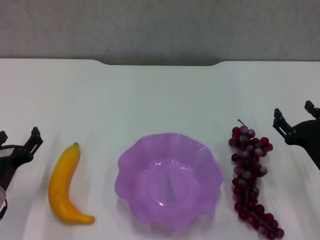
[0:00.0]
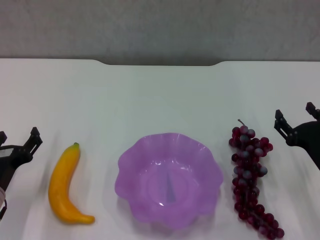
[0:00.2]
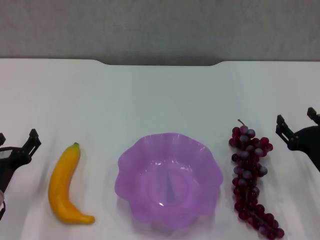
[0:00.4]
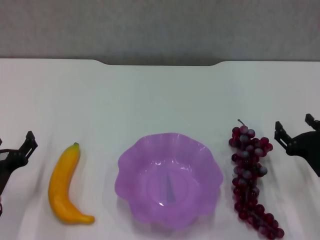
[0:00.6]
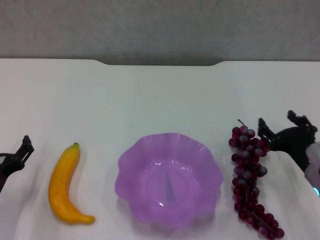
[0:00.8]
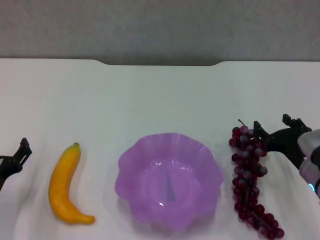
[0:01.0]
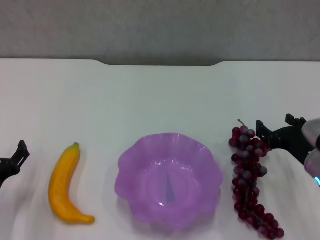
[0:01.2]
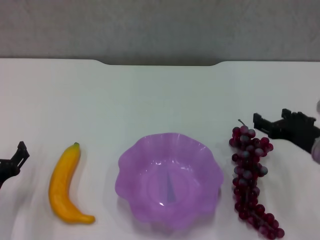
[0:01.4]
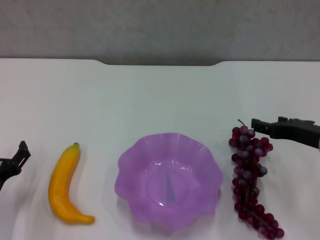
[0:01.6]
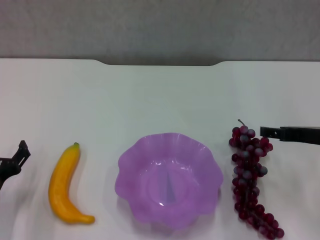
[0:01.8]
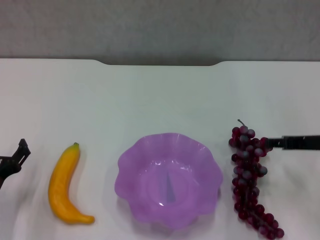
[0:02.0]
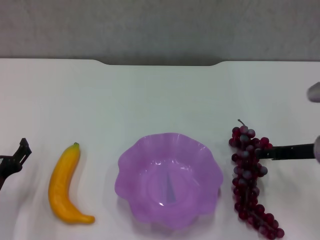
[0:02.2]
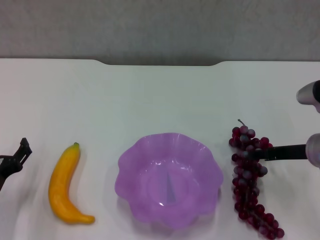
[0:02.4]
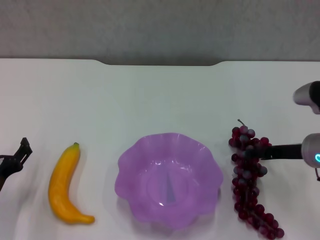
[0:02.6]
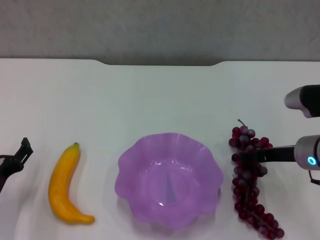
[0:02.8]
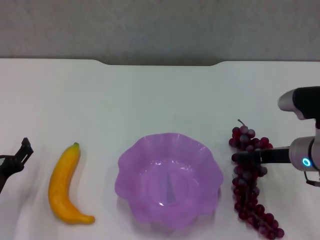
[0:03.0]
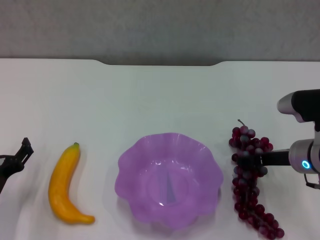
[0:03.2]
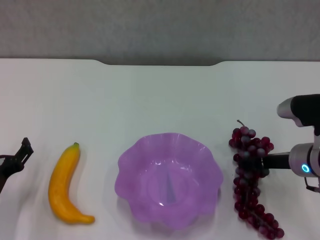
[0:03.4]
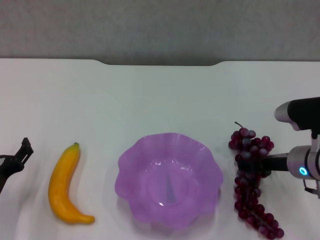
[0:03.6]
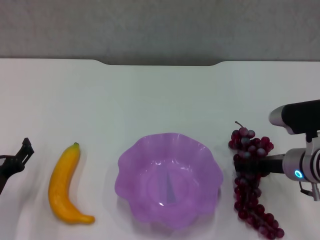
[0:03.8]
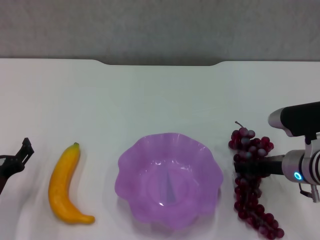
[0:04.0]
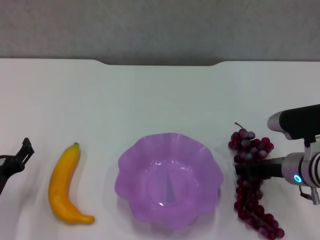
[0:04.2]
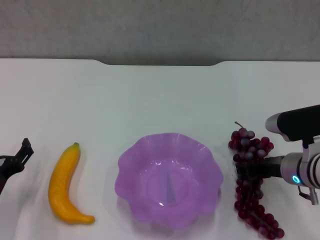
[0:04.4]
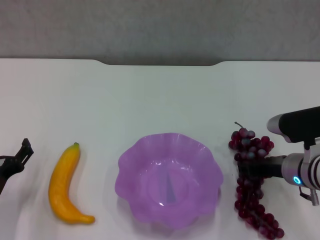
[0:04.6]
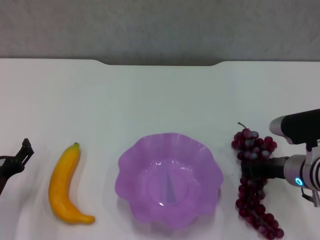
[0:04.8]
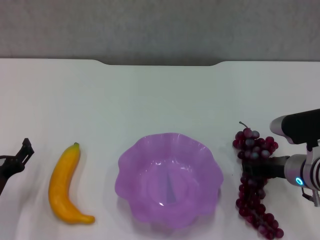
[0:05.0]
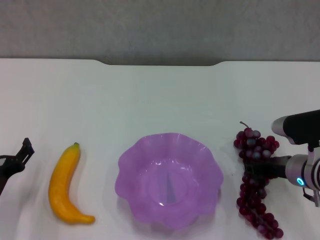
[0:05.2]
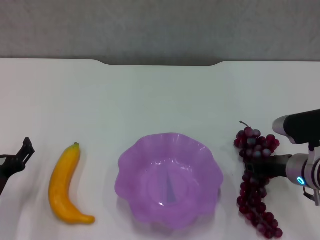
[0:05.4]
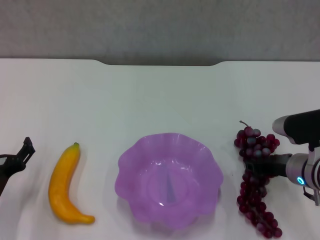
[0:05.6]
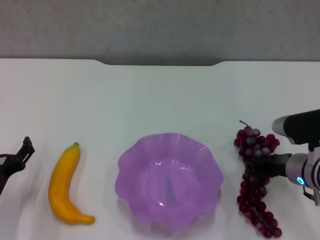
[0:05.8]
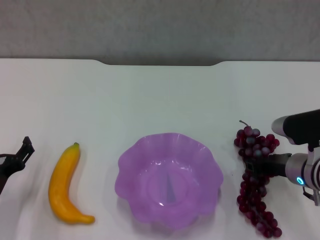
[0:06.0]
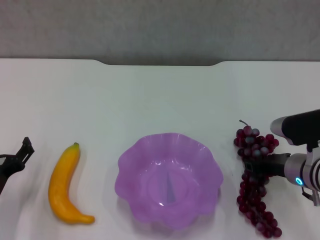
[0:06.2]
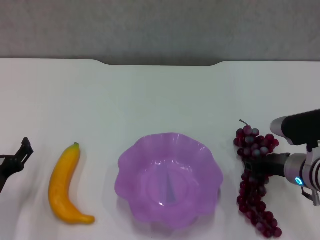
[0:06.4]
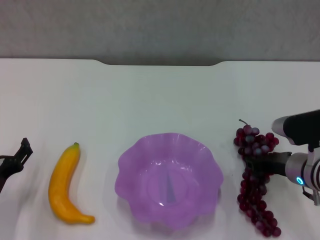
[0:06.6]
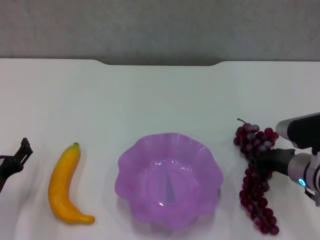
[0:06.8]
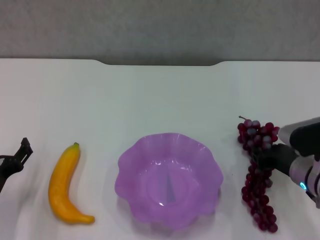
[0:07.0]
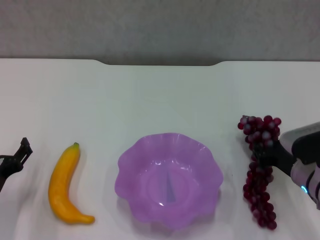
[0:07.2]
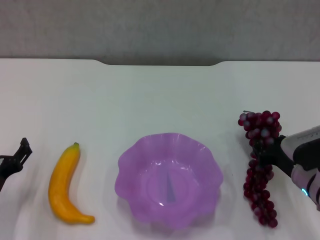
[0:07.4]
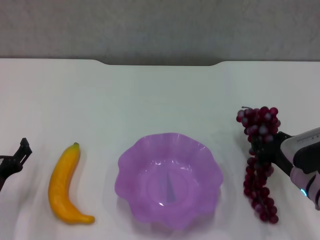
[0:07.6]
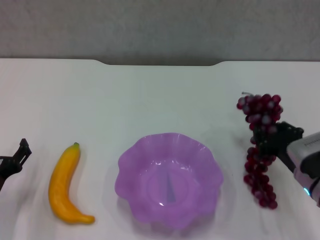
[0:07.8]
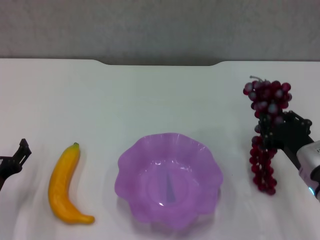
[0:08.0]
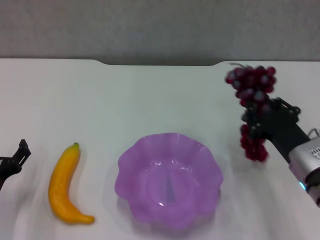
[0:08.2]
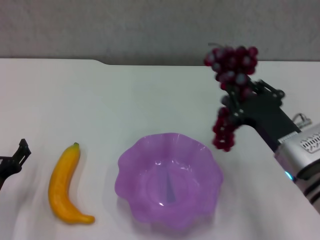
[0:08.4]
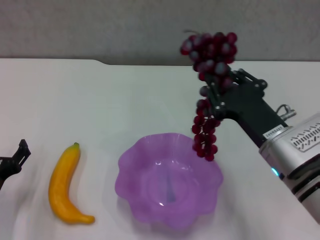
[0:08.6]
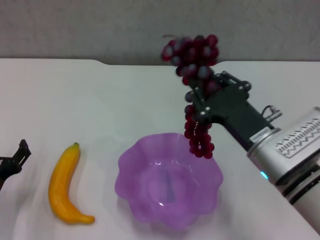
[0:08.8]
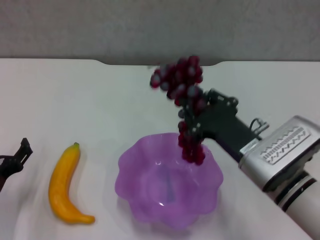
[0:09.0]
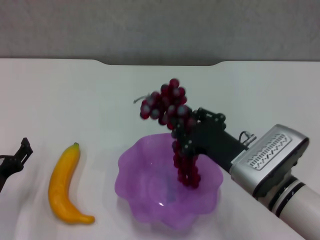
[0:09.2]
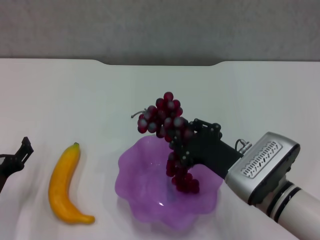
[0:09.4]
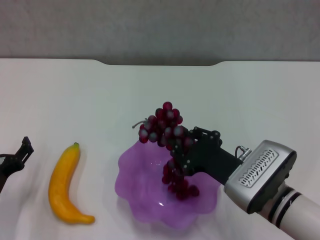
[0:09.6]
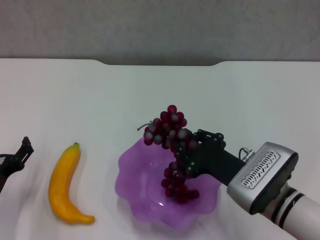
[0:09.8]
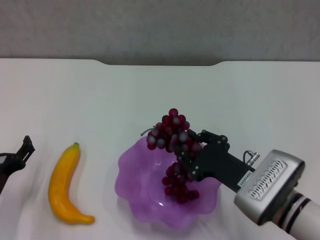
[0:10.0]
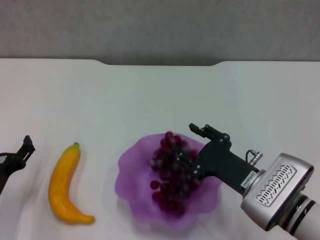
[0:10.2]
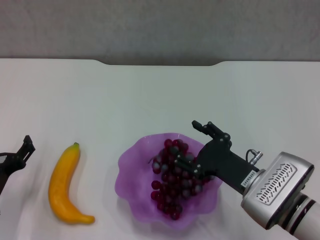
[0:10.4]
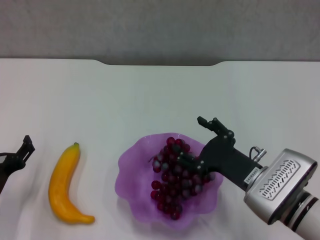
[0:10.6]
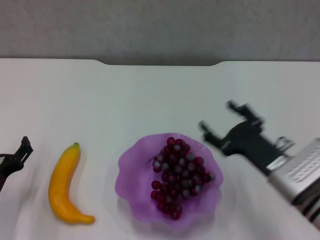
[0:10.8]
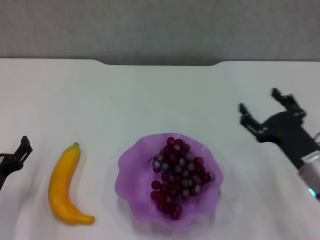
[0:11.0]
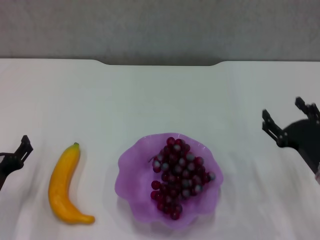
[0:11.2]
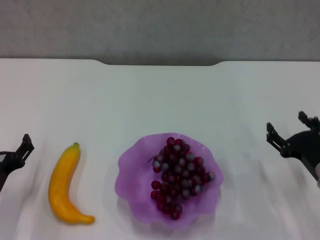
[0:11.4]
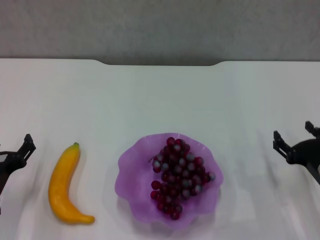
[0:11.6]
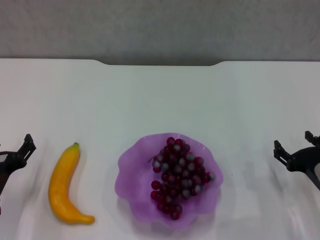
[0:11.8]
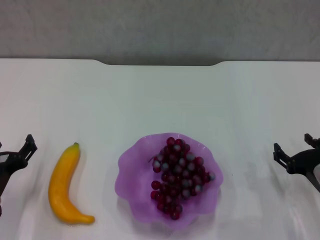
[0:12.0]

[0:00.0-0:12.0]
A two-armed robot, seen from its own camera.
Step, 0:00.0 to 0:04.8: Grasp the grape with right gripper.
Step, 0:05.2 to 0:10.6: Place the grape in the purple plate with right gripper.
0:00.0 to 0:01.6: The right gripper shifts approximately 10 cm upward.
0:01.6 to 0:03.0: The right gripper changes place by about 5 cm.
0:03.0 to 0:04.4: The grippers make only small movements.
0:04.4 to 0:06.0: The right gripper closes up.
0:07.6 to 0:09.0: The right gripper heads to the left and upward, covering roughly 10 cm.
0:09.0 to 0:10.4: The right gripper is displaced downward by roughly 5 cm, and opens its fingers.
0:10.4 to 0:12.0: The right gripper is displaced to the right by approximately 10 cm, and opens its fingers.

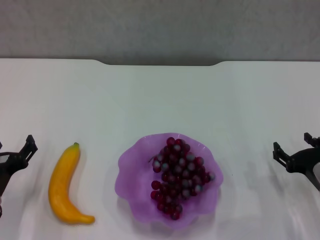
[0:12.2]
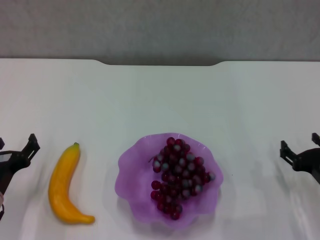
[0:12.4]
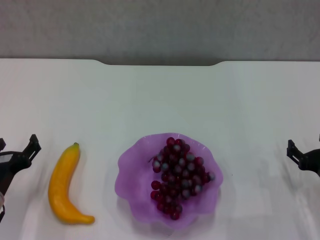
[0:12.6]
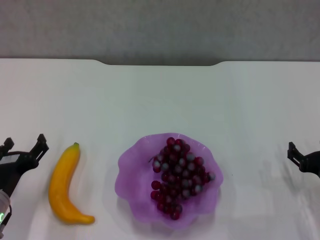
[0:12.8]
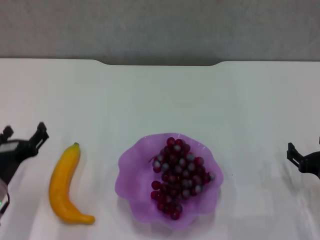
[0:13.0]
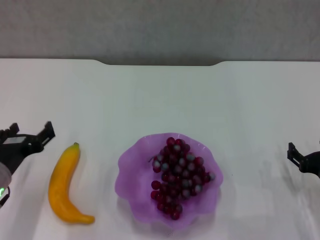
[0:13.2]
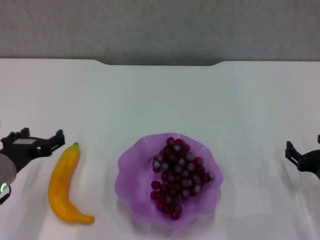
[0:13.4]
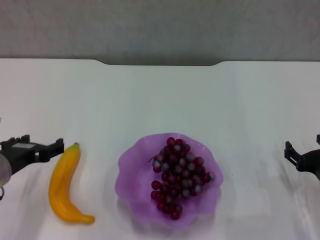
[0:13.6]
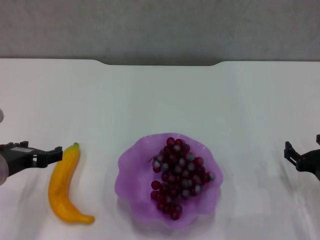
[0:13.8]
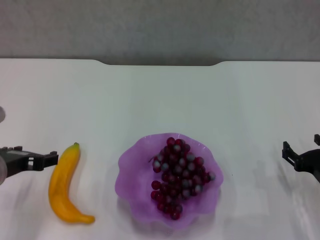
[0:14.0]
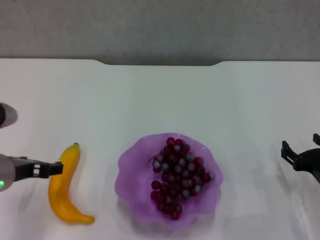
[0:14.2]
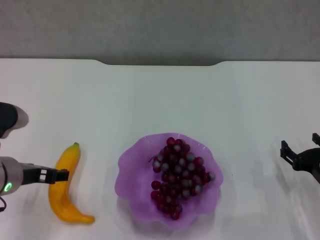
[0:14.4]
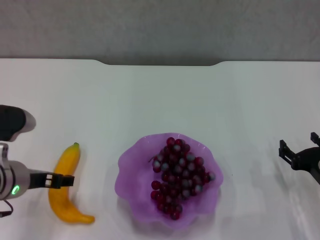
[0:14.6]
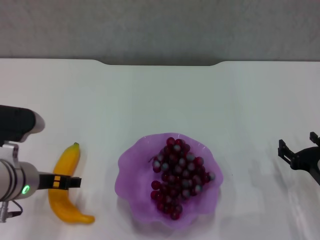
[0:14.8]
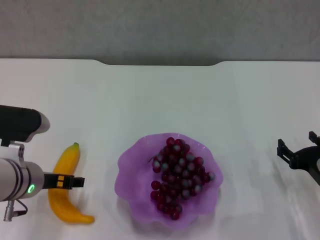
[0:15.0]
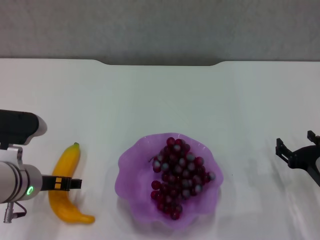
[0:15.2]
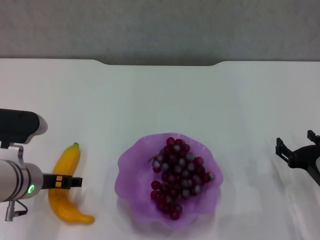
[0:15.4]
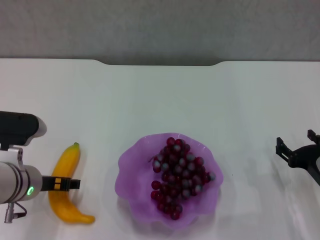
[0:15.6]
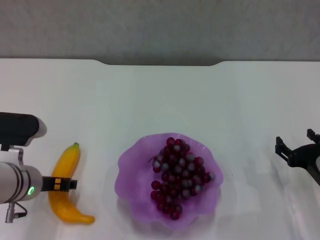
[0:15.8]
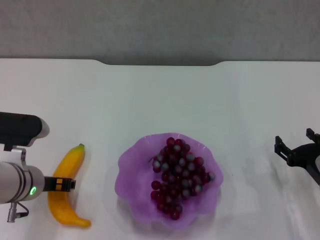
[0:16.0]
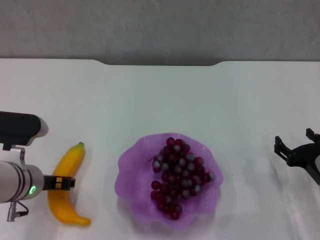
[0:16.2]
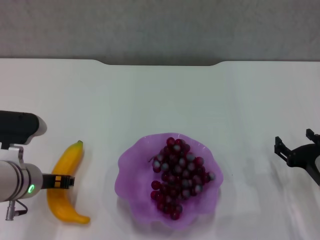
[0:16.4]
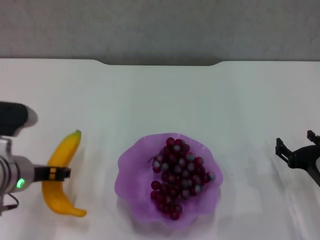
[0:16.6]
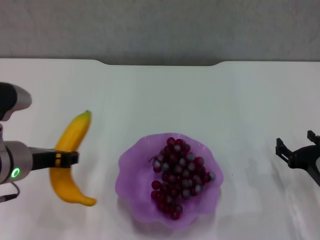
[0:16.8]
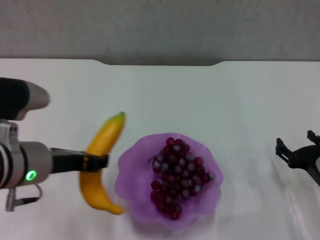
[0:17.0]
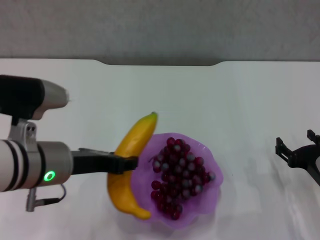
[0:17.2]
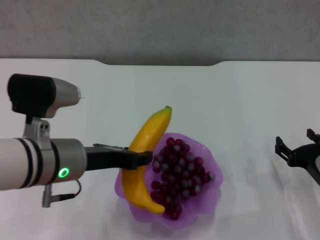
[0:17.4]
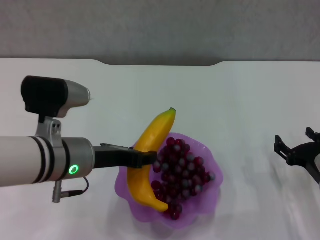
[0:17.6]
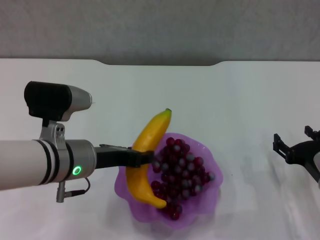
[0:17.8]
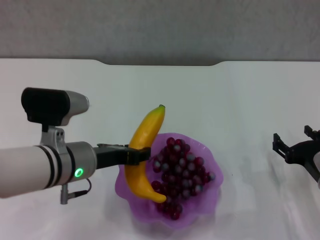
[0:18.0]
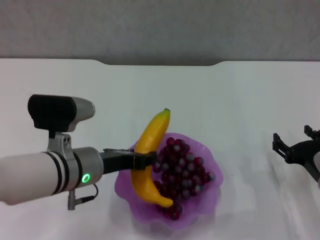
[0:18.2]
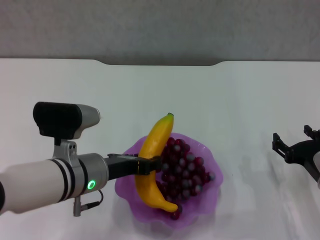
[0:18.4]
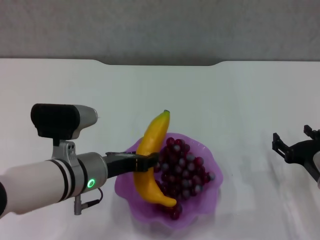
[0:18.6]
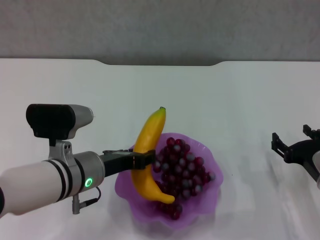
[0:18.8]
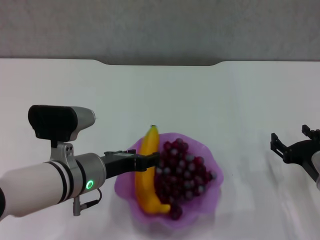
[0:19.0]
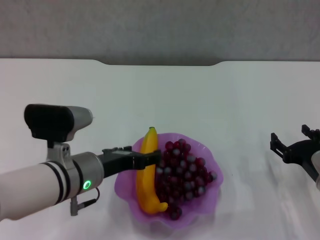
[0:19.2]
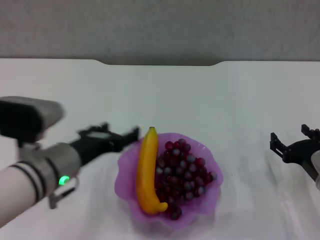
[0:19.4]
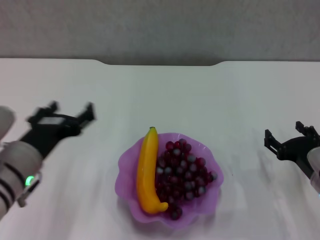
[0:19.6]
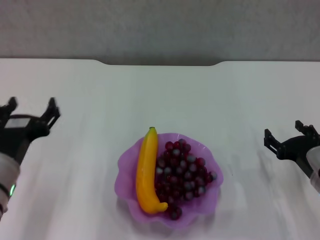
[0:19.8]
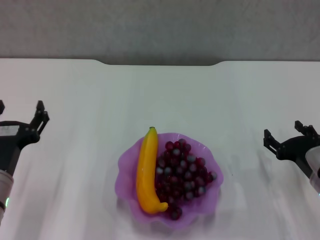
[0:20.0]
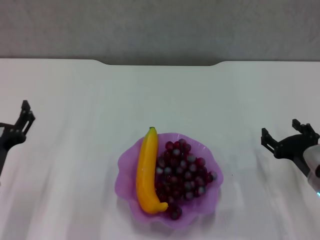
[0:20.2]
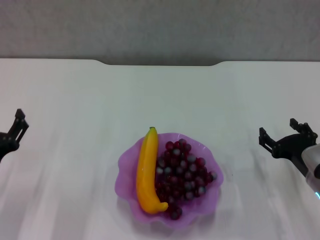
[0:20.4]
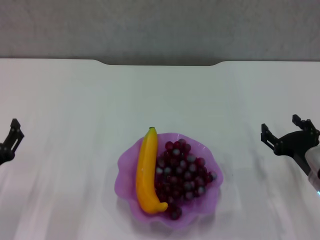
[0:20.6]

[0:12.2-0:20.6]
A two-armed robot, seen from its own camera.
Step, 0:12.2 to 0:16.0: Grasp the banana with left gripper.
Step, 0:16.2 to 0:19.2: Place the banana in the purple plate with left gripper.
0:12.2 to 0:13.6: The left gripper heads upward, covering some 10 cm.
0:15.0 to 0:16.4: The left gripper closes its fingers.
0:16.4 to 0:17.8: The left gripper shifts approximately 10 cm to the right and upward.
0:17.8 to 0:19.2: The left gripper opens its fingers.
0:19.2 to 0:20.6: The left gripper is displaced to the left, downward and backward by approximately 15 cm, and opens.
